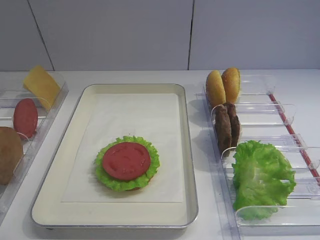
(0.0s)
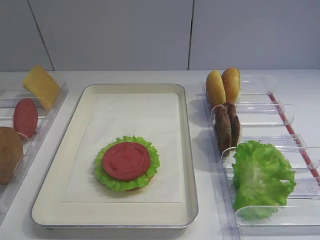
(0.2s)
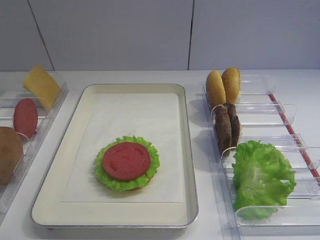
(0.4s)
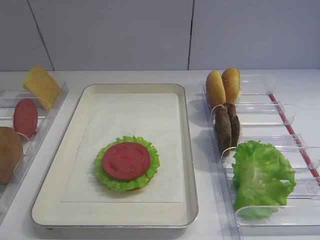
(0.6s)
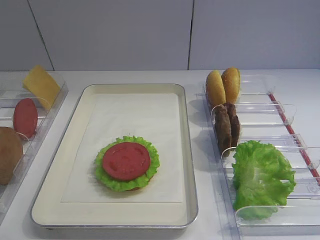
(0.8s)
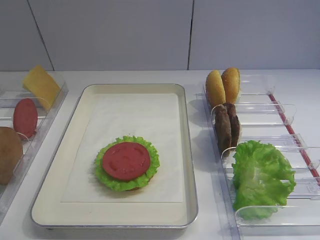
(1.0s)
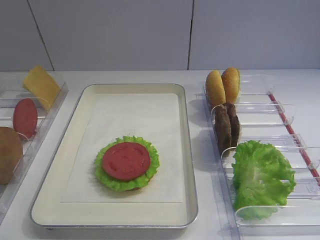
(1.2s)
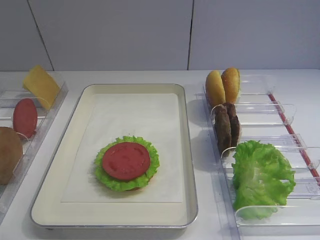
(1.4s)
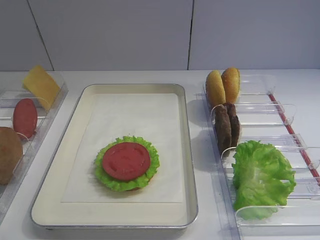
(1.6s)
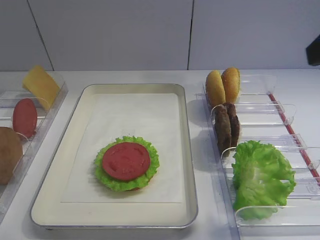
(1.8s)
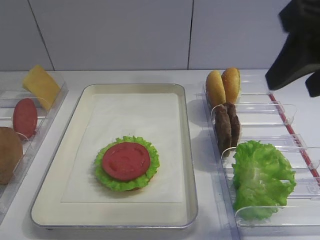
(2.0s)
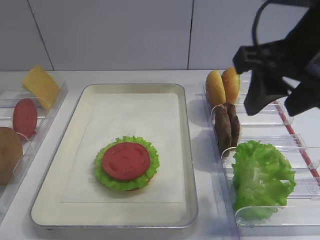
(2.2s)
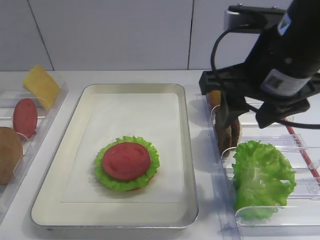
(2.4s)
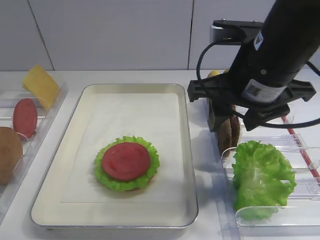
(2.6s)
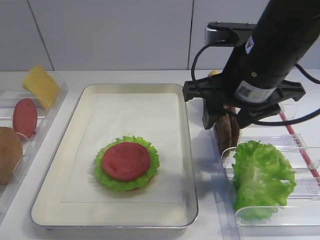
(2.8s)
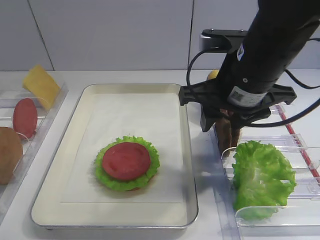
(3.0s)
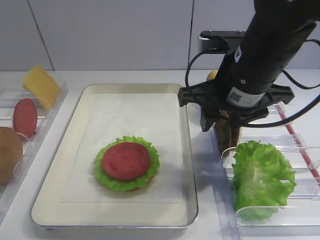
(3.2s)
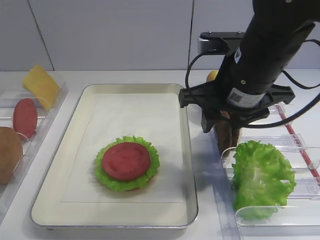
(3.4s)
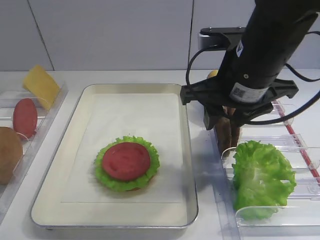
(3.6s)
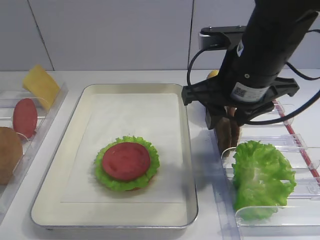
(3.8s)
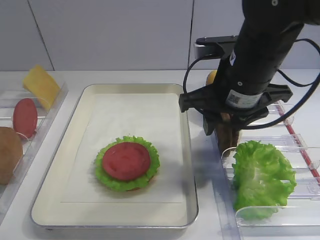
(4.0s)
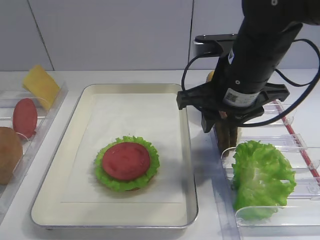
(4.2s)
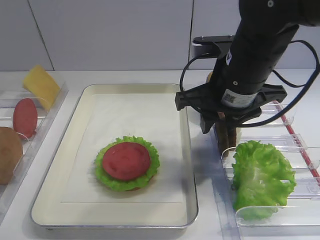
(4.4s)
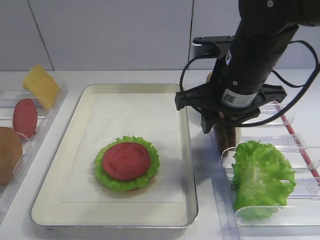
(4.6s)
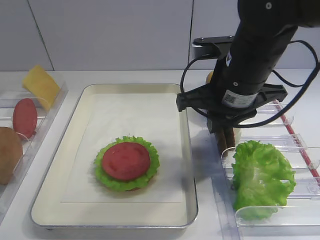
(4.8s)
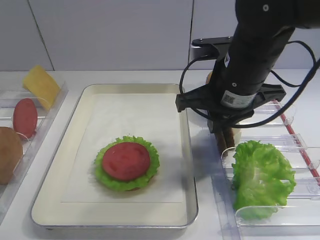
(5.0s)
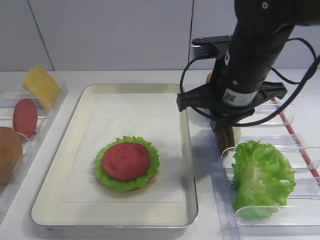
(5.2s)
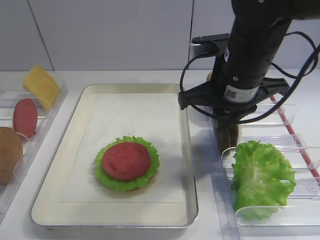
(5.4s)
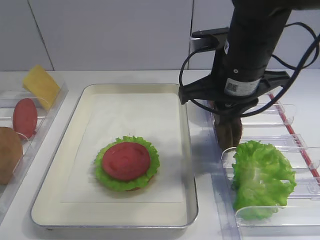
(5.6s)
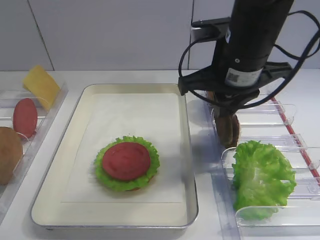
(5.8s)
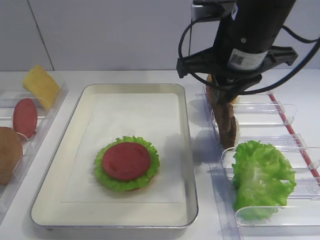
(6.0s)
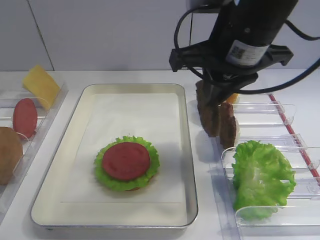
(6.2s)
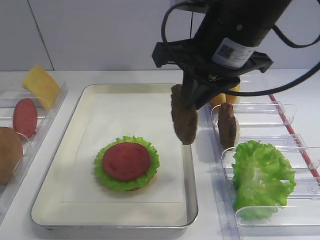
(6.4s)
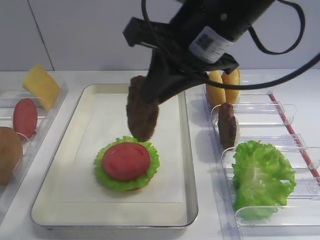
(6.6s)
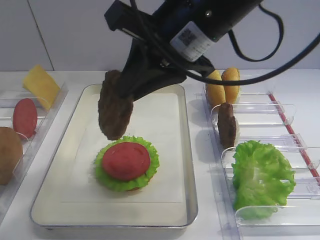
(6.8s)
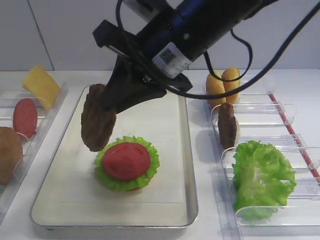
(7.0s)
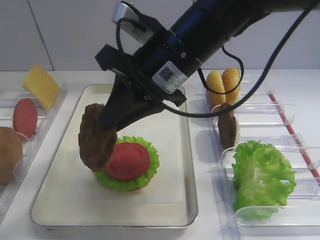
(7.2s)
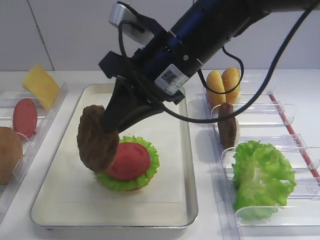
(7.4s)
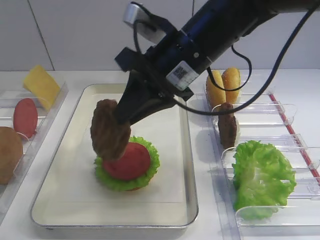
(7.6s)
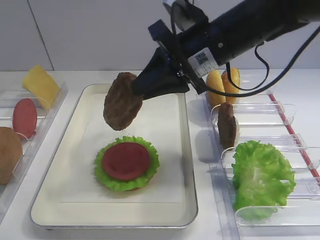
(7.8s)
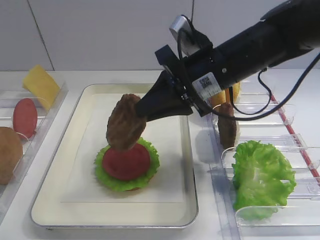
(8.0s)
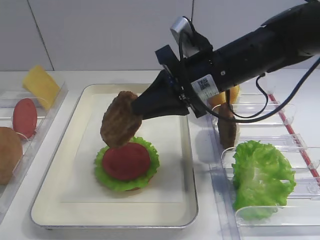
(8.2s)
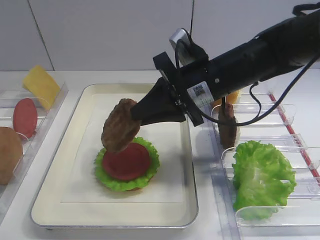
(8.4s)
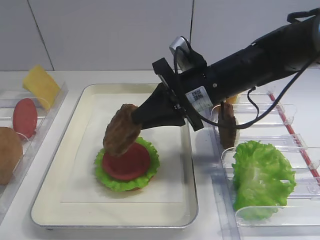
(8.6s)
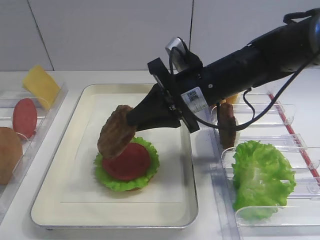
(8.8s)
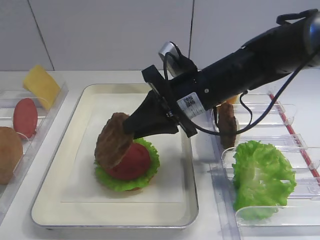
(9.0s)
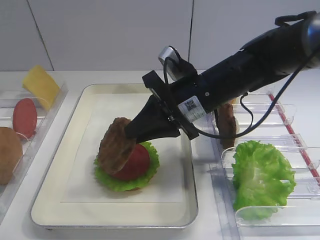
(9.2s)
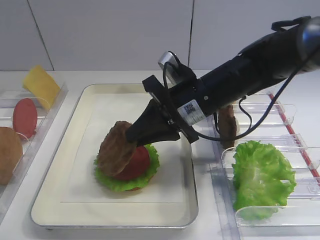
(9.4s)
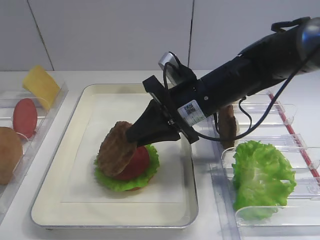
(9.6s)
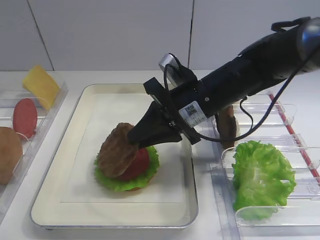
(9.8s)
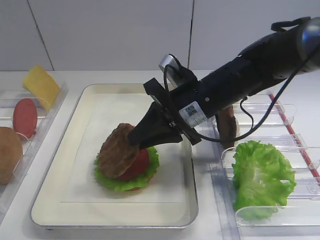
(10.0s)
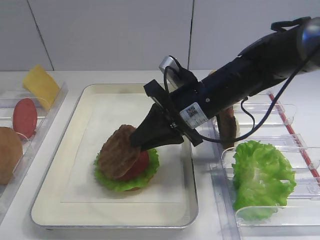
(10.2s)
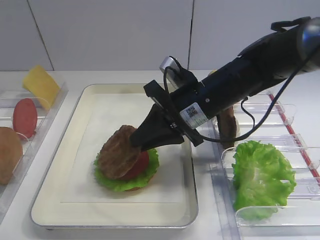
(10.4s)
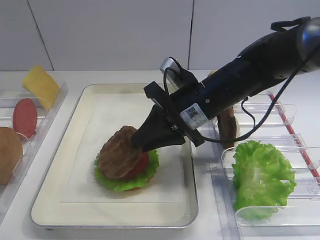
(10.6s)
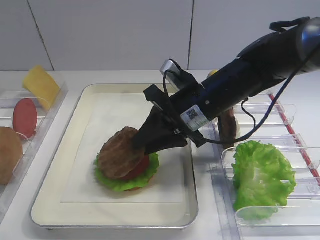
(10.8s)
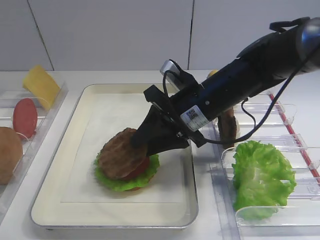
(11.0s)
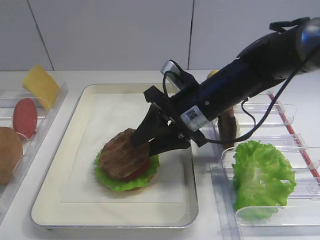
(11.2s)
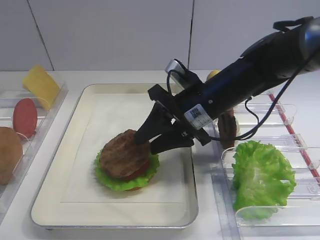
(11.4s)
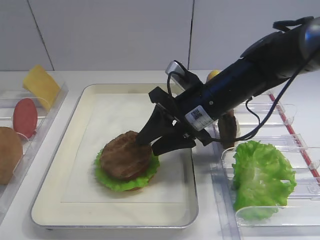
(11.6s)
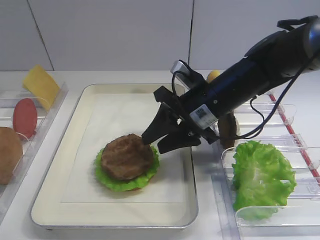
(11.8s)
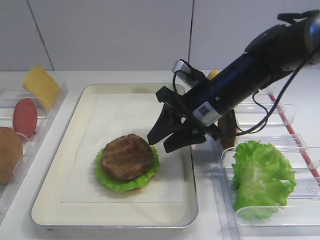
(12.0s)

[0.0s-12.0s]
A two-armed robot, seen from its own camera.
Step, 0.0s to 6.0s: Pick up the cutlet with the right gripper.
1.6s to 3.0s: The right gripper travels forward, to the left and downward by some 20 cm.
3.0s to 4.4s: The grippers stay close to where they were, moving slightly.
4.4s to 6.0s: The right gripper is displaced upward by approximately 5 cm, and closes its fingers.
6.0s to 7.6s: The right gripper travels to the left by about 5 cm.
7.6s to 9.0s: The right gripper shifts some 5 cm downward.
9.0s to 10.4s: The grippers stay close to where they were, moving slightly.
10.4s to 12.0s: The right gripper opens its fingers.

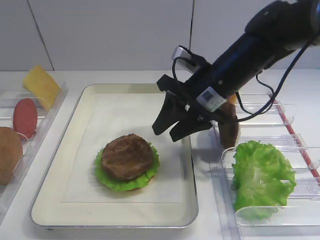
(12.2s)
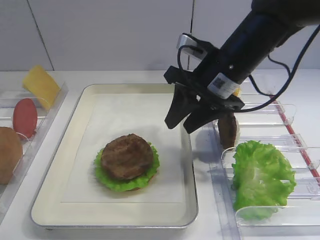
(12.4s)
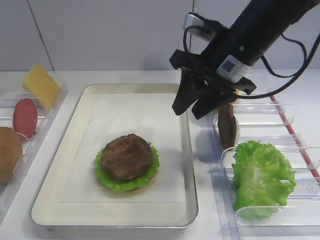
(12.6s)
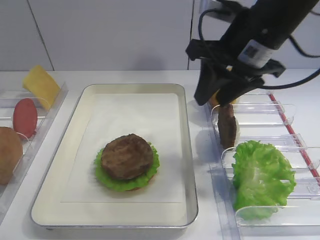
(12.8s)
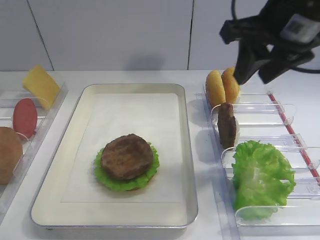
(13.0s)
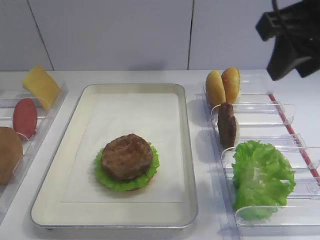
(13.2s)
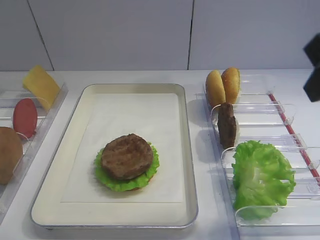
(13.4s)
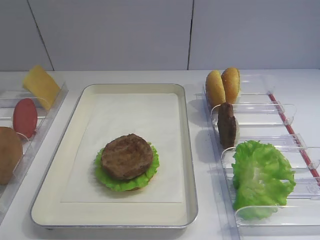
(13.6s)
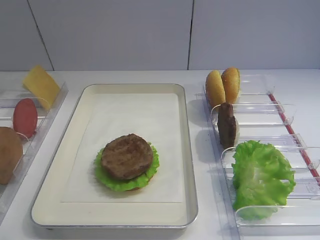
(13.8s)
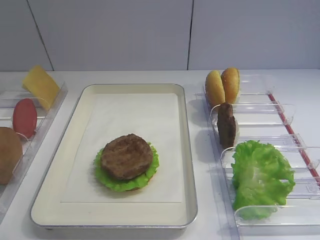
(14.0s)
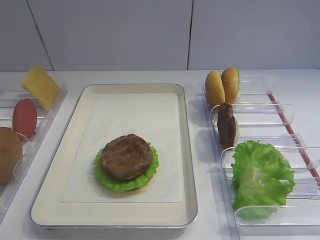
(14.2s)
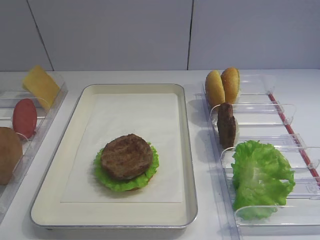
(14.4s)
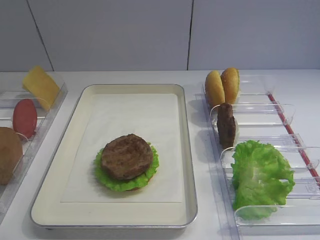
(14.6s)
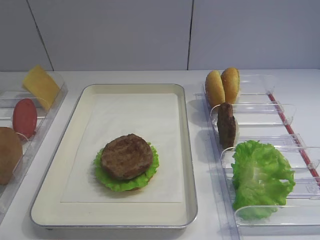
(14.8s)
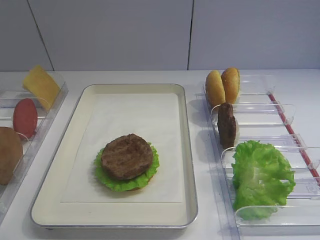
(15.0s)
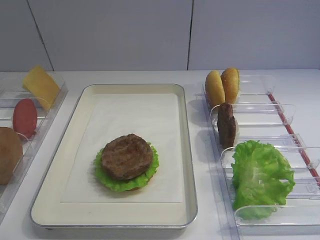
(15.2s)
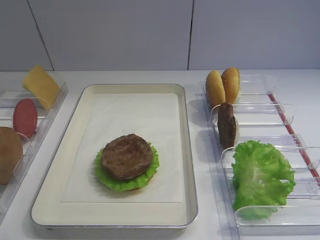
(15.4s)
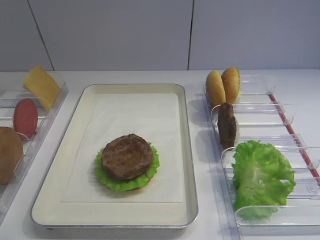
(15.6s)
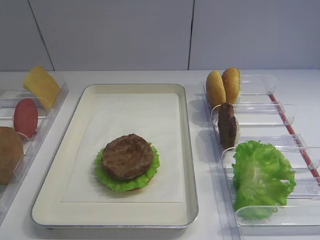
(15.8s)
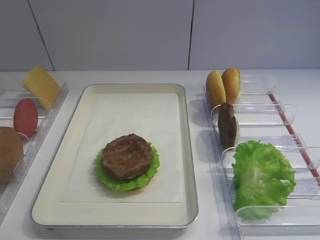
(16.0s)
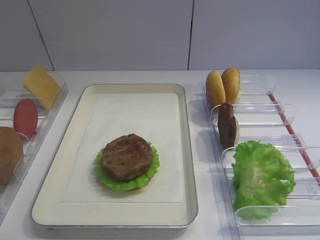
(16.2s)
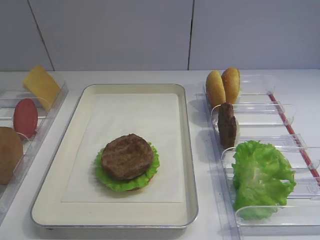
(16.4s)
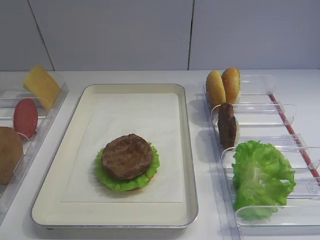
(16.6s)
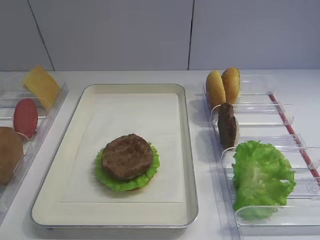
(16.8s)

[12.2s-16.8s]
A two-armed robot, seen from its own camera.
12.2s to 13.8s: The right gripper shifts about 35 cm backward, to the right and upward.
13.8s to 15.2s: The right gripper shifts approximately 10 cm downward and backward.
15.2s to 16.8s: The two grippers keep their place.

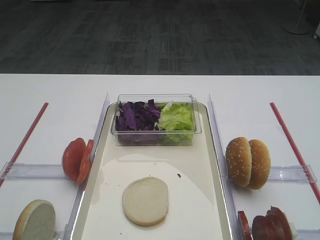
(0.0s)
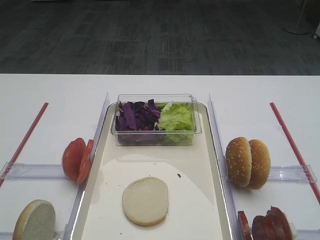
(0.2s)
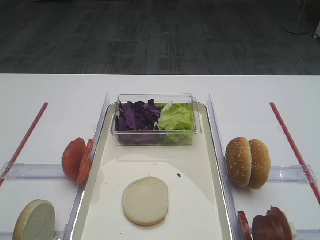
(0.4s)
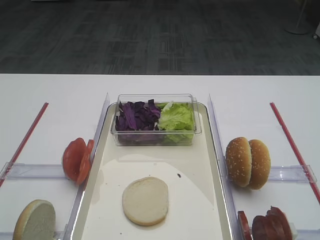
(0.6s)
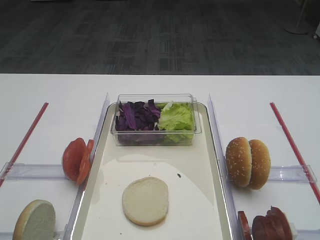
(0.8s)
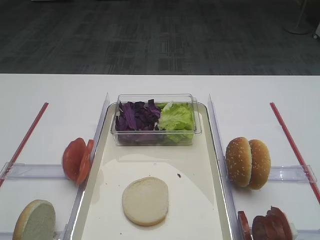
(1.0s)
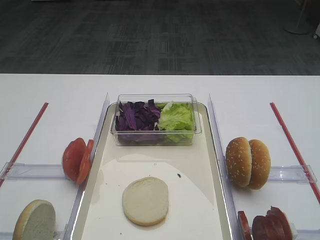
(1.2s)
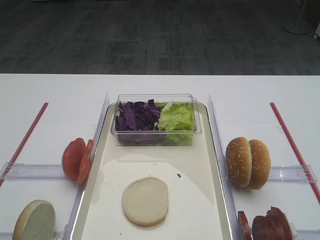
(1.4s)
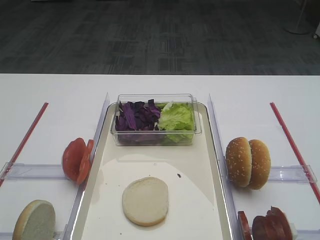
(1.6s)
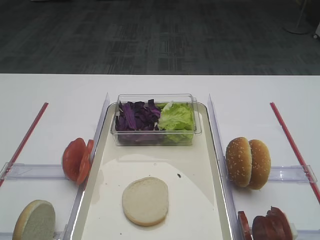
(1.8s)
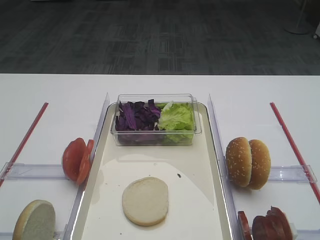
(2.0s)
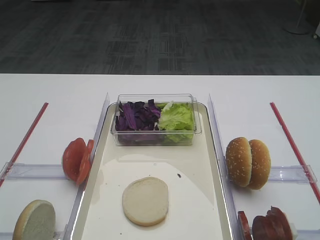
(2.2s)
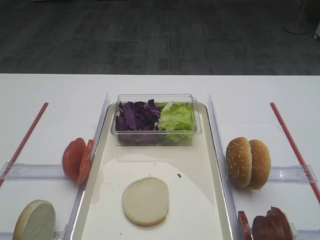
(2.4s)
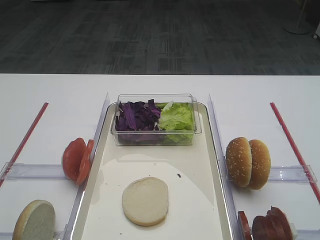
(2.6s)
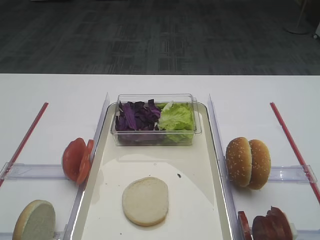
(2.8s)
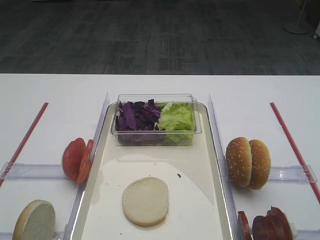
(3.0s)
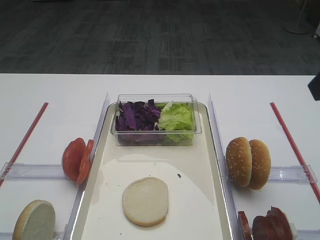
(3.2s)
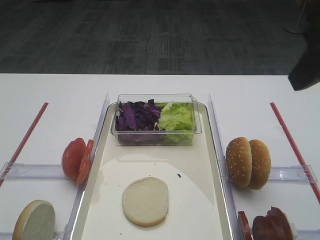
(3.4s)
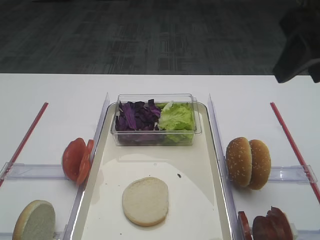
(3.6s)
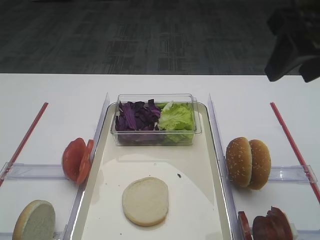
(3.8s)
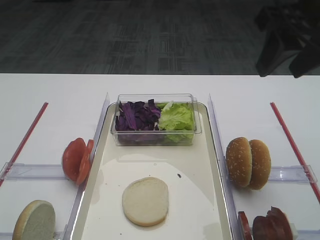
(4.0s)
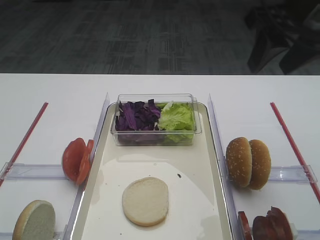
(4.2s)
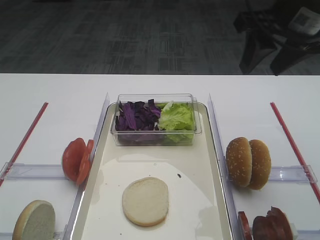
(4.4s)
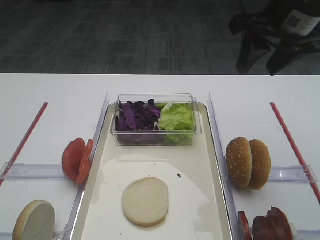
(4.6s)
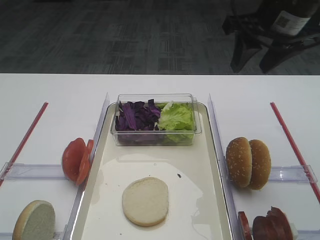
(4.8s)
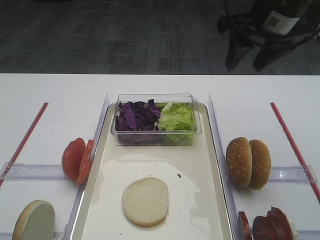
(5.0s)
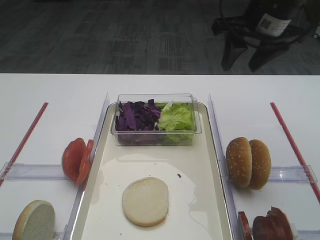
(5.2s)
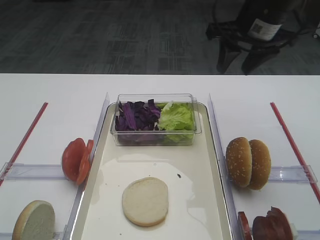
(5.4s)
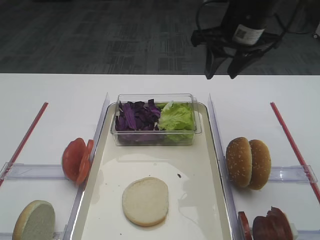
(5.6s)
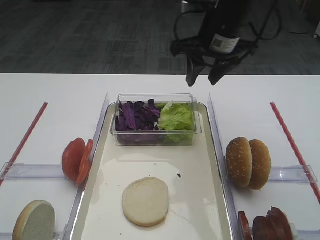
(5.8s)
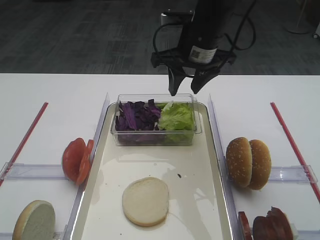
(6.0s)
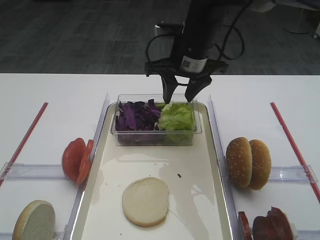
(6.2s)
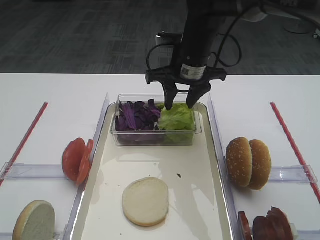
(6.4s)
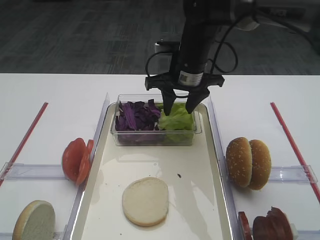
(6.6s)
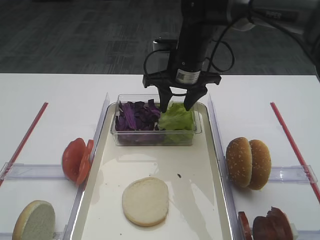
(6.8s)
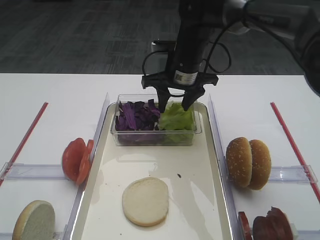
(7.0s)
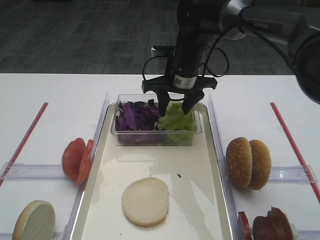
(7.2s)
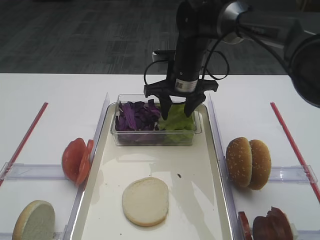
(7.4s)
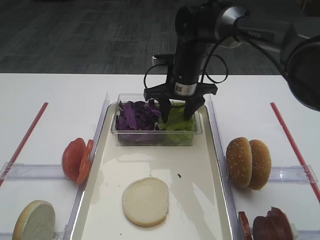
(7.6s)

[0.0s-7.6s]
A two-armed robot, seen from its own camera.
3.0s to 4.6s: The right gripper goes approximately 20 cm forward.
4.6s to 6.0s: The right gripper moves to the left, forward and downward, roughly 15 cm.
6.0s to 7.6s: The right gripper shifts some 10 cm downward.
